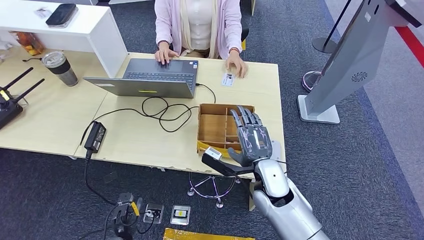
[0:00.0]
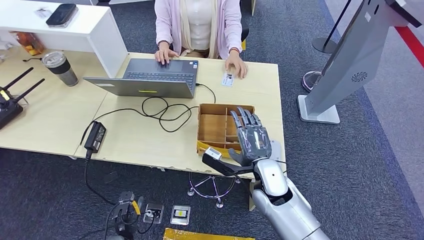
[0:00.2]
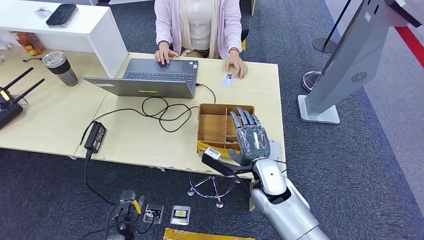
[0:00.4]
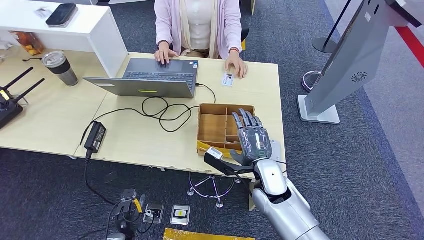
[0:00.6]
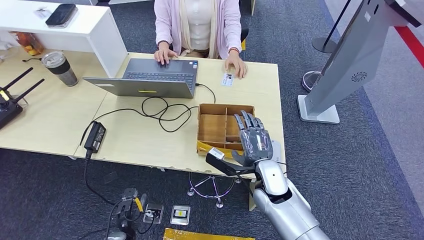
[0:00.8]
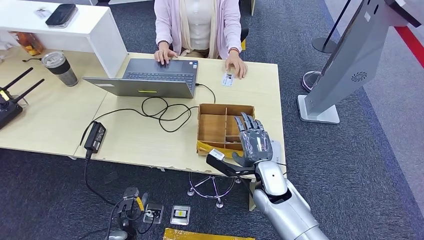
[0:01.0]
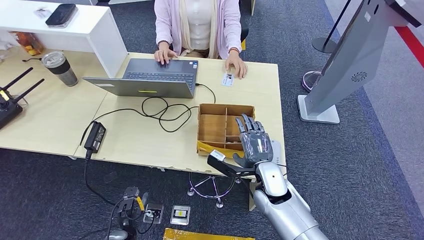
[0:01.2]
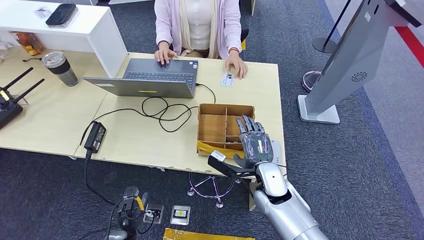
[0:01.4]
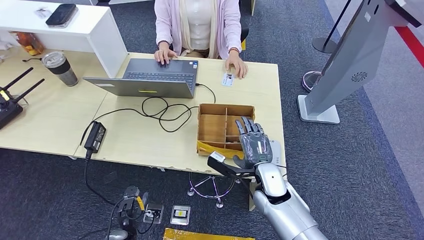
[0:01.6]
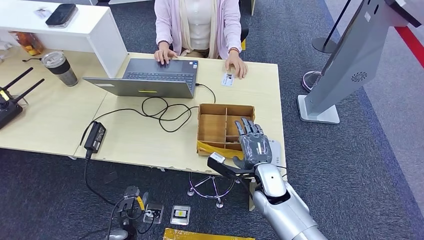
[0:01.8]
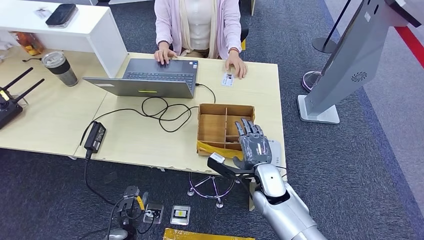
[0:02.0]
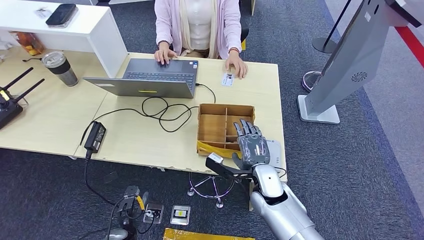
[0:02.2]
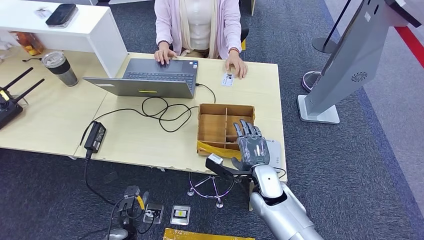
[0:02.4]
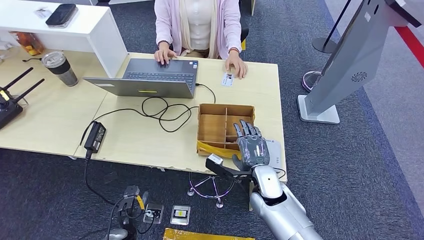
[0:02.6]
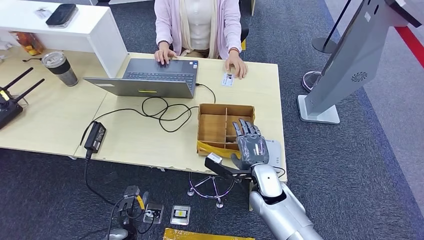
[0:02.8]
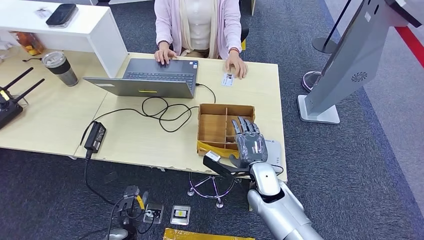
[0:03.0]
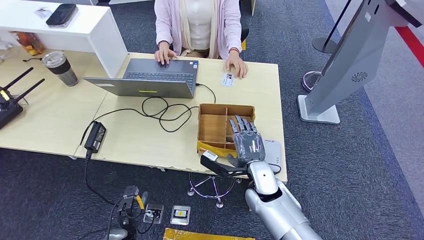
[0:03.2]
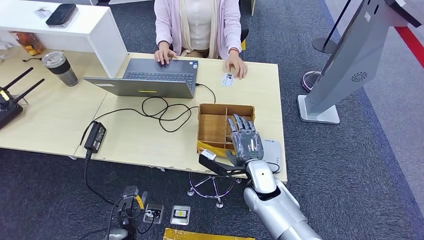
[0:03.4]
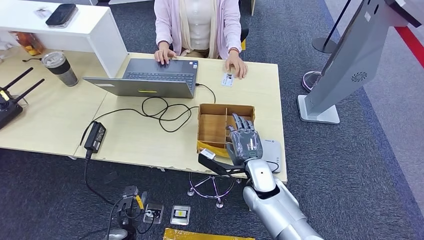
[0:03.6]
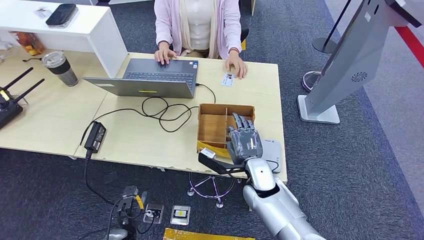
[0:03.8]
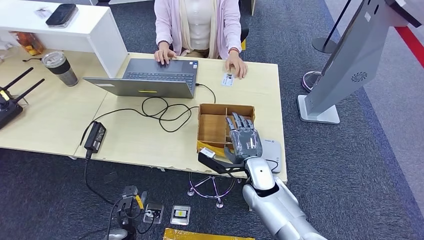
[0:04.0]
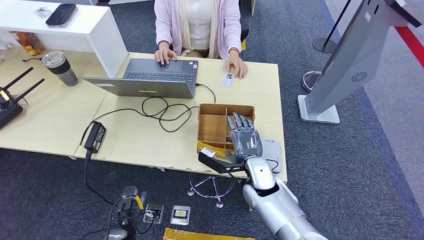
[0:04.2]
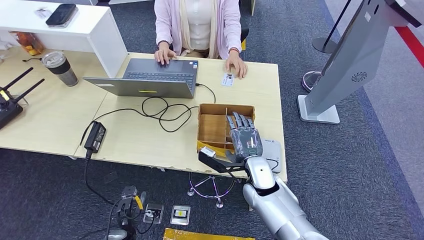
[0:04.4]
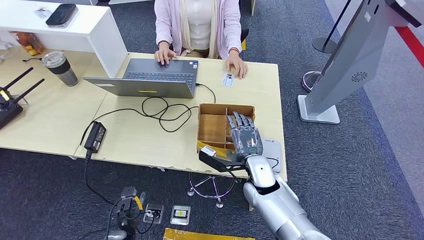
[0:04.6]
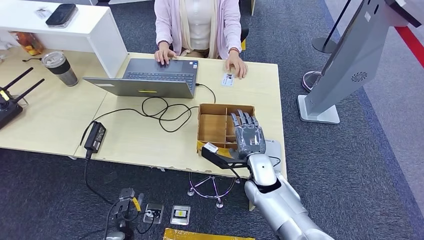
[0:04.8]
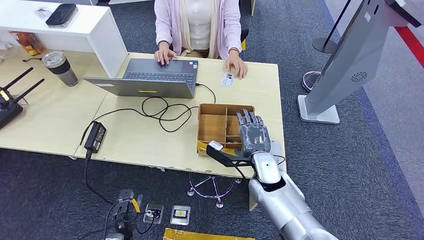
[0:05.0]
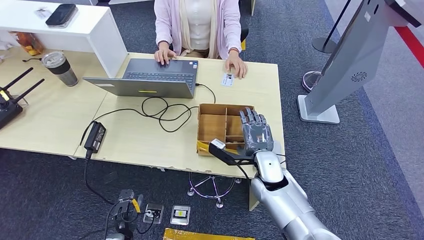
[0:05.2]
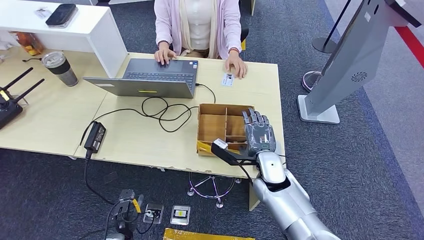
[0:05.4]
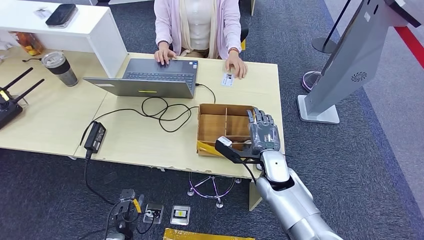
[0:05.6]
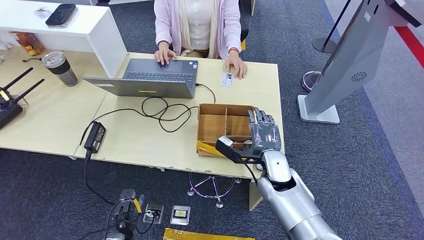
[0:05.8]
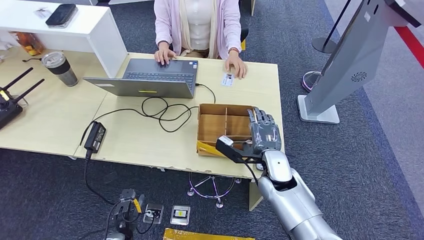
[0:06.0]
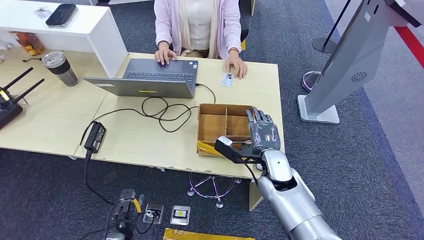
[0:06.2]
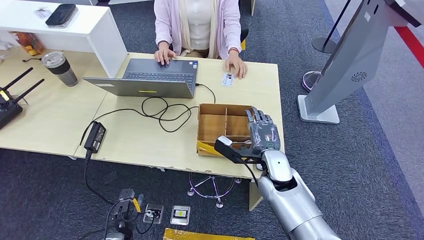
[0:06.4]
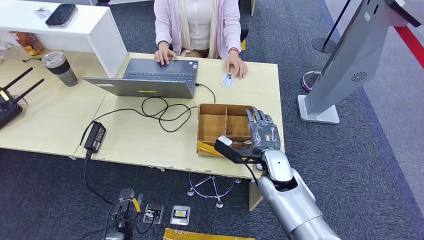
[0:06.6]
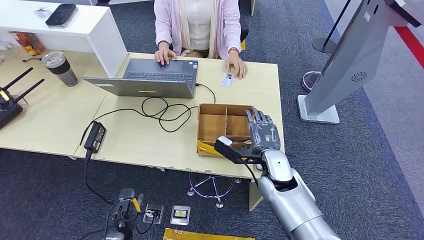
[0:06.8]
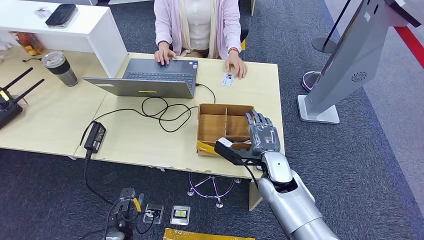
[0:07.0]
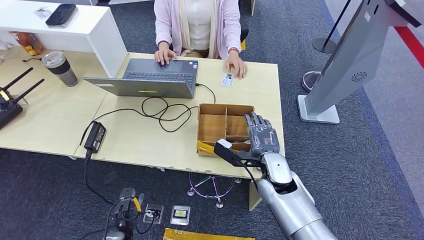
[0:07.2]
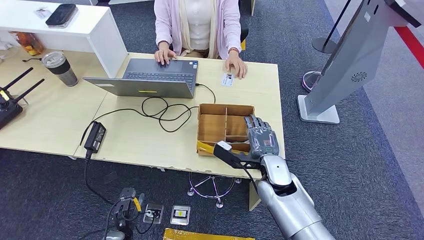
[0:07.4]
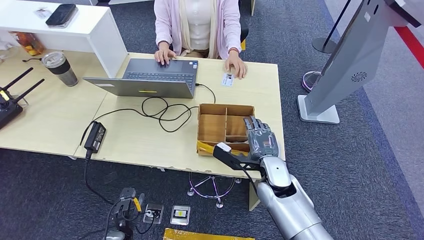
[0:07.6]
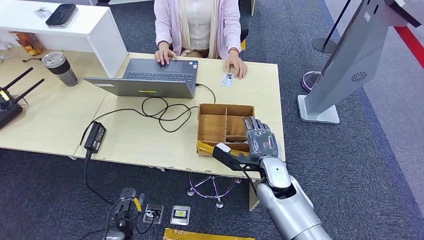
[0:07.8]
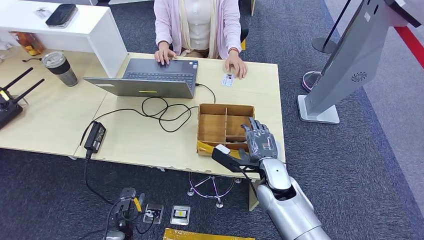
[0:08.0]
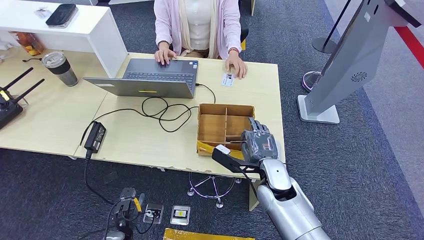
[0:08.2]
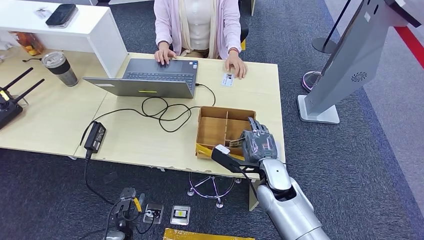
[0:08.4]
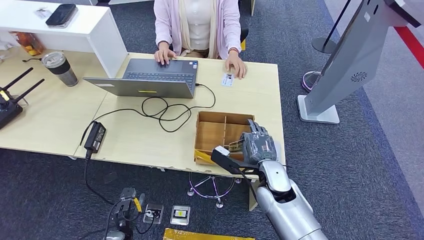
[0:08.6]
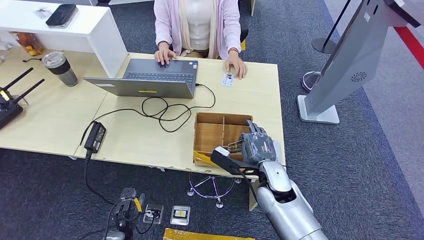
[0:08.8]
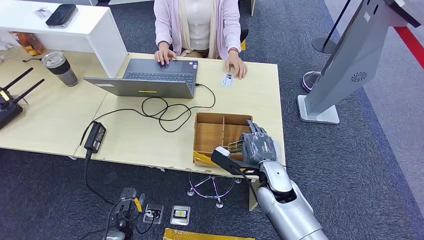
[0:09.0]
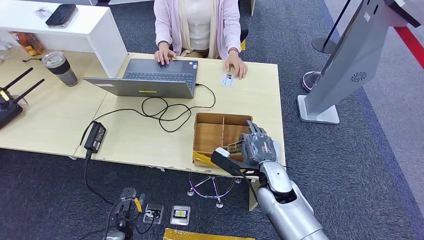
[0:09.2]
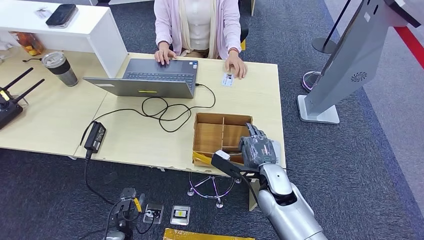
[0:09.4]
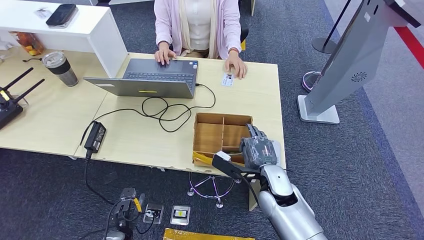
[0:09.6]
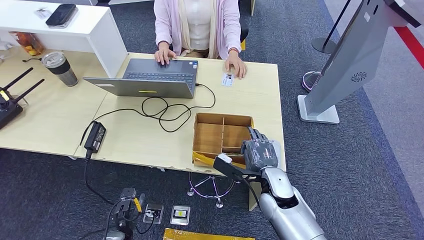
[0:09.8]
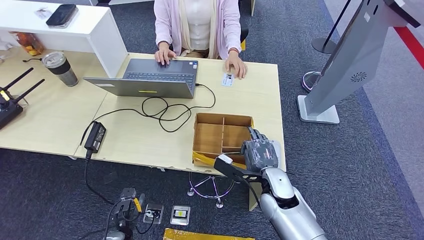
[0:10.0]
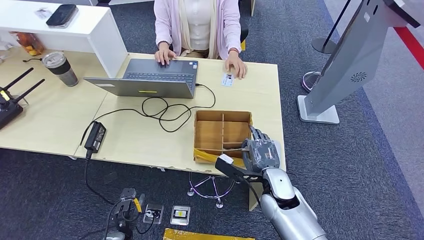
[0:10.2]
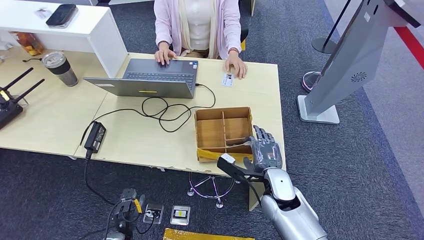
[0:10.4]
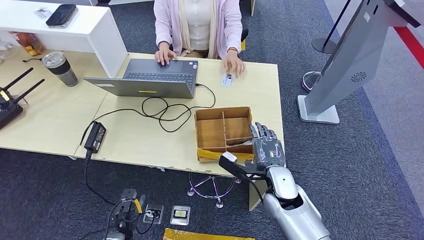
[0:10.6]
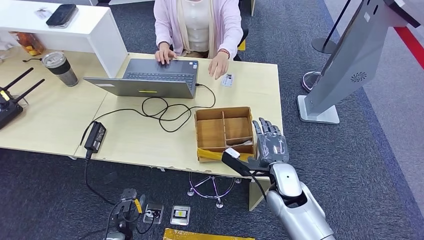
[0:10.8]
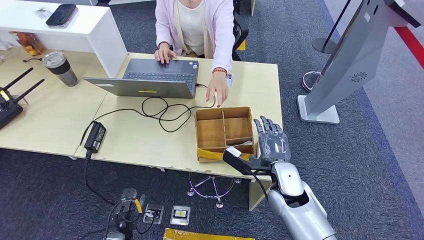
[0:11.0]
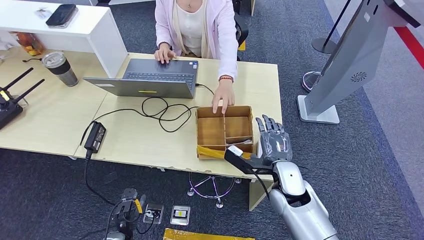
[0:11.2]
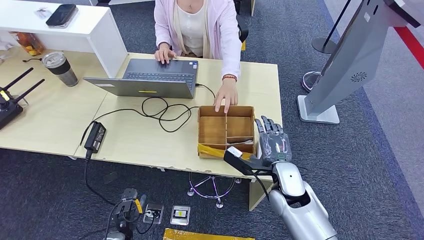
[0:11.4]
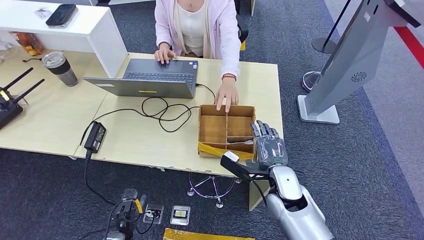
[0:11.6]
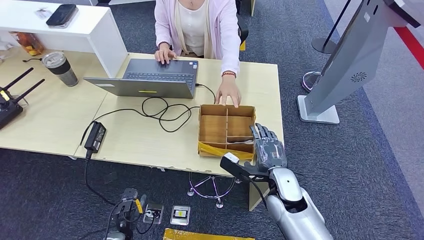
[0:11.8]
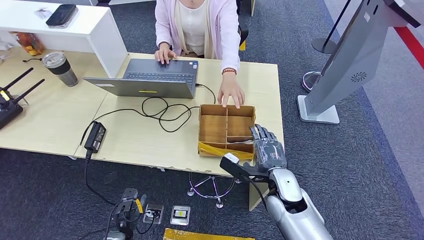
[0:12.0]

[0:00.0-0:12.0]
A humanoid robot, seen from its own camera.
0:00.0 to 0:12.0: The hands stay close to where they were, moving slightly.

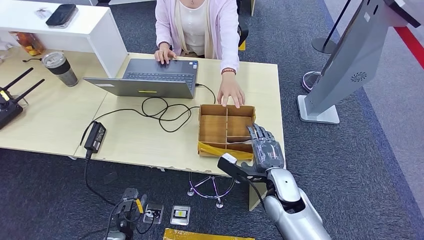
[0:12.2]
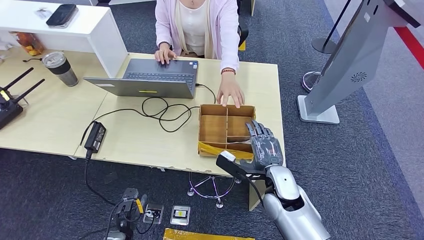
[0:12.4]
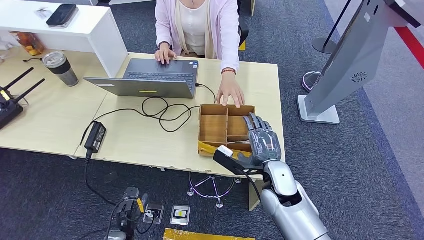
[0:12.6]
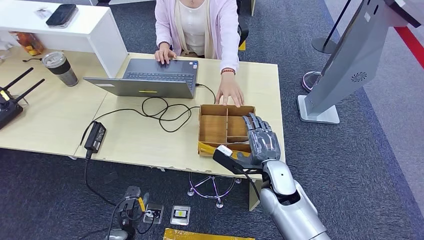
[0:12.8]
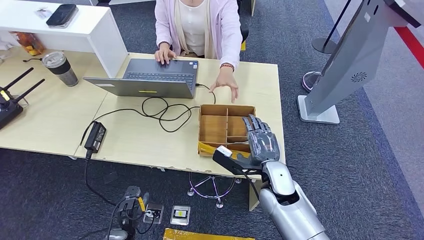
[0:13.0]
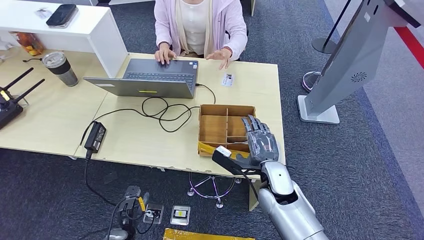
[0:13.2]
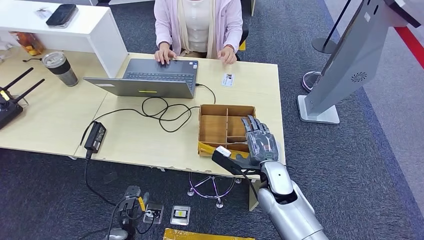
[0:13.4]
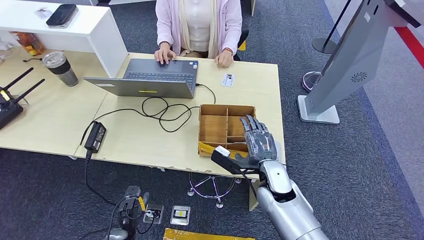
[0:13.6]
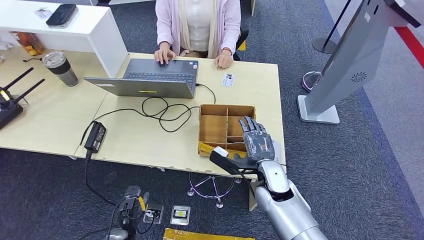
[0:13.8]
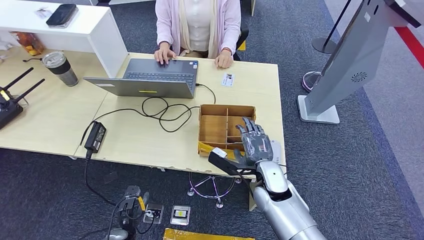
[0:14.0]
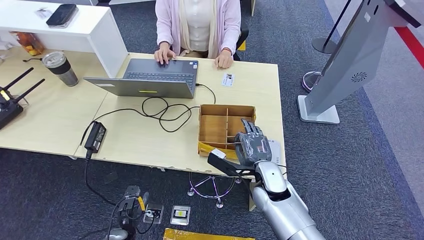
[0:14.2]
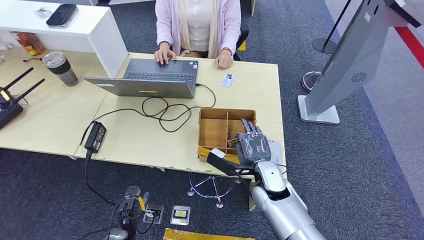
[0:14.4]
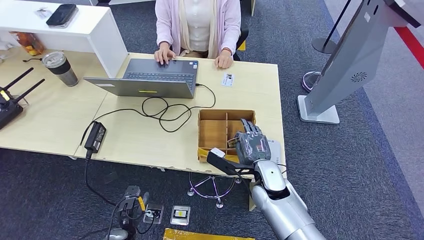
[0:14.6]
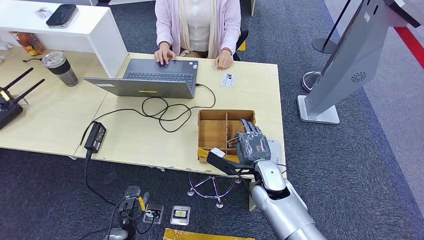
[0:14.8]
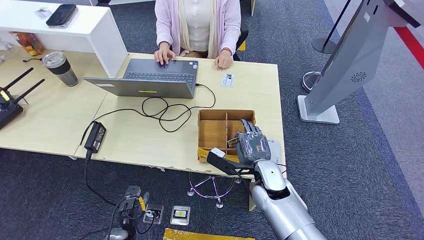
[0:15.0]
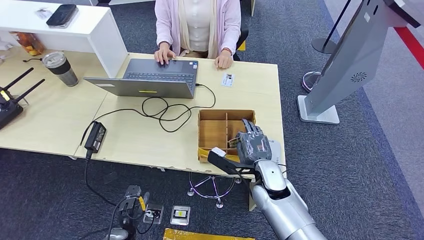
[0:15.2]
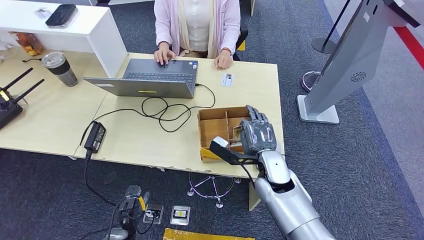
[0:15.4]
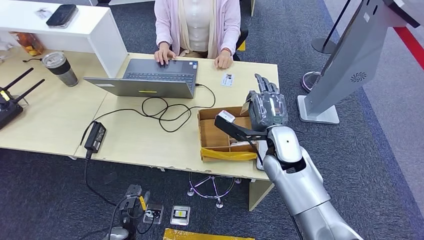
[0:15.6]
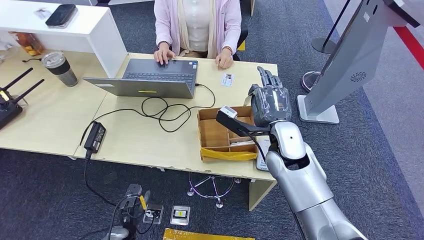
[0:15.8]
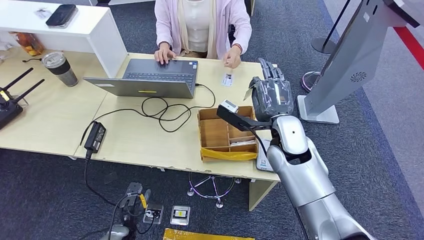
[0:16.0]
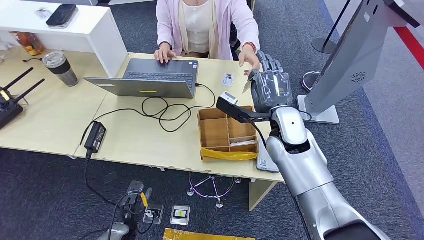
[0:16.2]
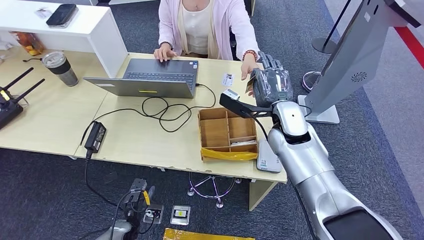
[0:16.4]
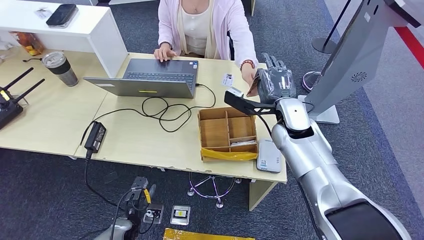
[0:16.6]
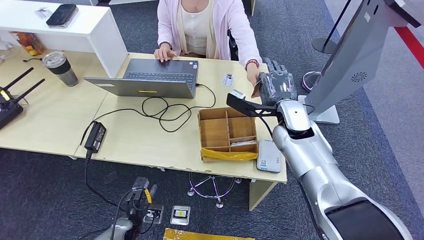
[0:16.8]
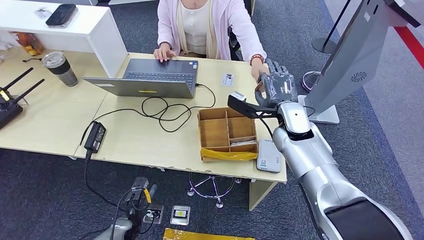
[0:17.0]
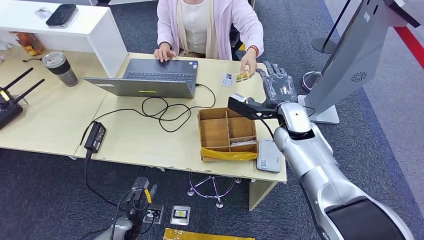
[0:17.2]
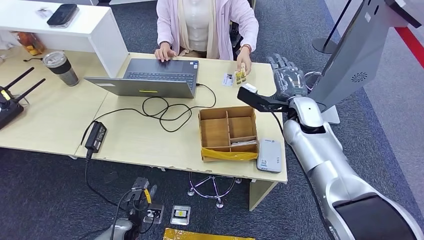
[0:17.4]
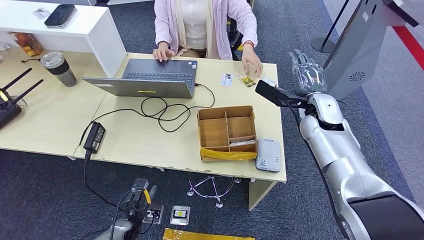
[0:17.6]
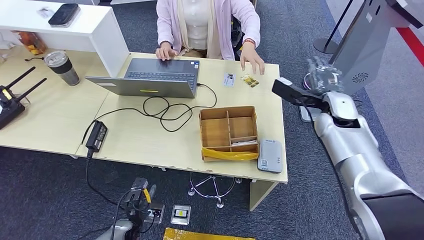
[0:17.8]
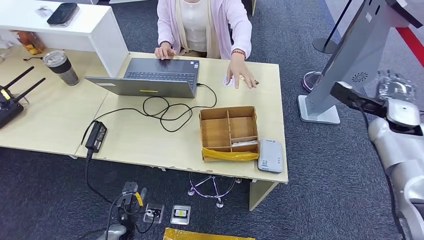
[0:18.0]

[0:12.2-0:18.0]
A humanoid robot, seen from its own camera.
Step, 0:12.2 to 0:16.0: Pick up the room key from the key card box.
Step, 0:16.4 to 0:18.0: Hand the room key to the person.
0:12.2 to 0:15.0: There are only small adjustments of the hands.
0:15.0 to 0:16.6: The right hand is displaced upward and forward by some 15 cm.
